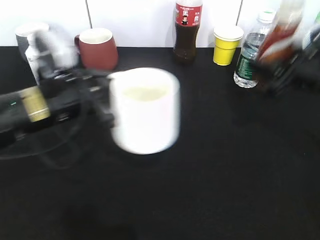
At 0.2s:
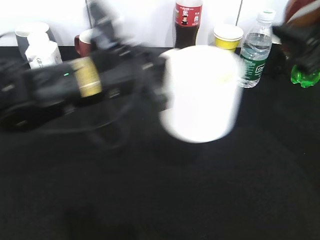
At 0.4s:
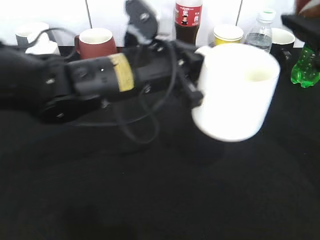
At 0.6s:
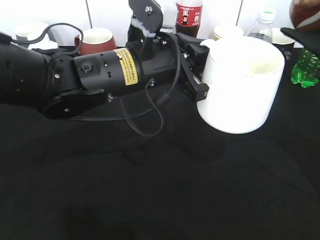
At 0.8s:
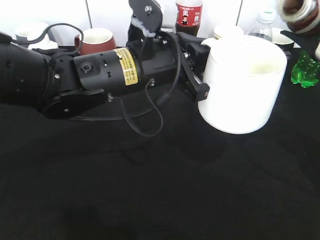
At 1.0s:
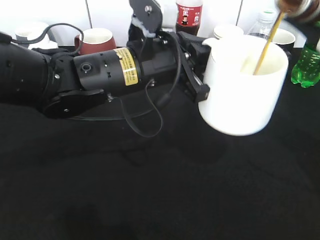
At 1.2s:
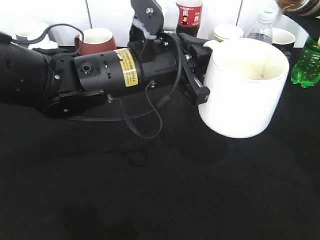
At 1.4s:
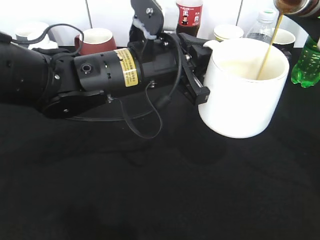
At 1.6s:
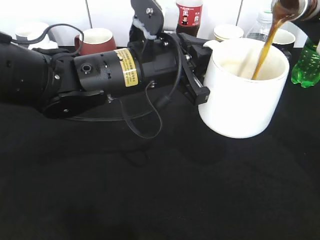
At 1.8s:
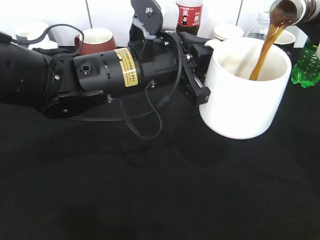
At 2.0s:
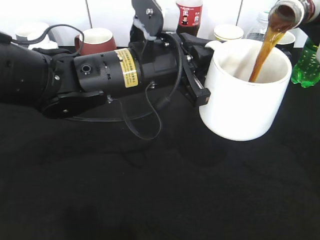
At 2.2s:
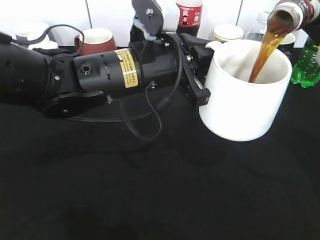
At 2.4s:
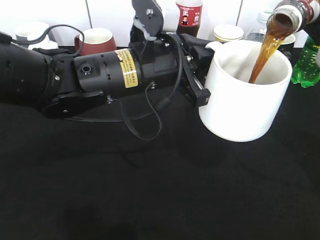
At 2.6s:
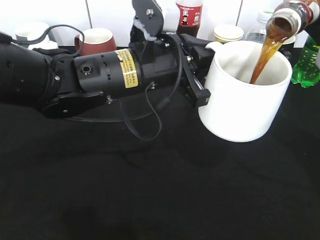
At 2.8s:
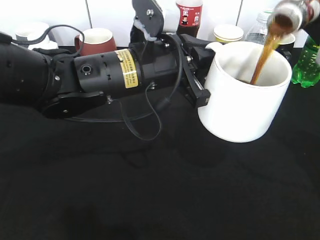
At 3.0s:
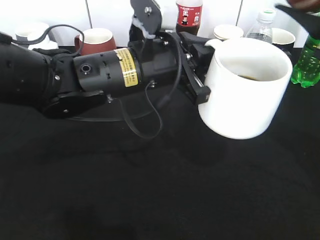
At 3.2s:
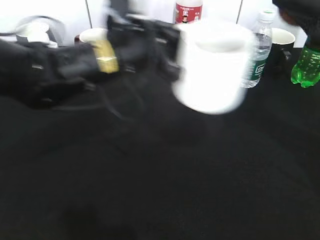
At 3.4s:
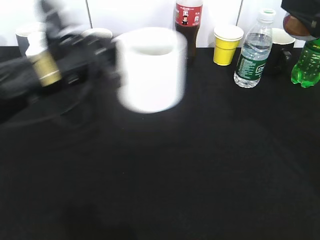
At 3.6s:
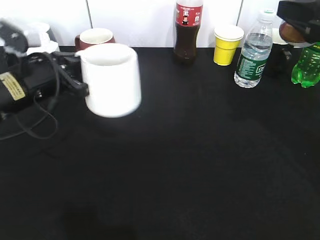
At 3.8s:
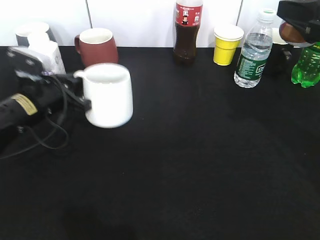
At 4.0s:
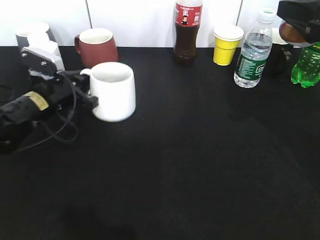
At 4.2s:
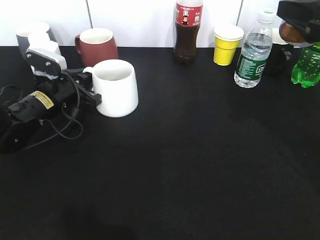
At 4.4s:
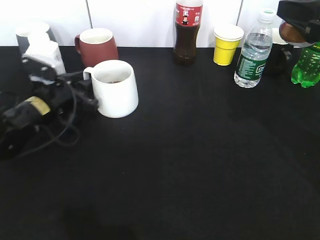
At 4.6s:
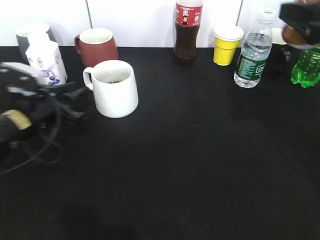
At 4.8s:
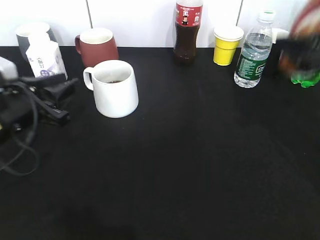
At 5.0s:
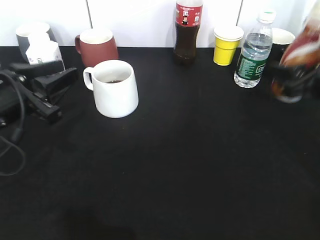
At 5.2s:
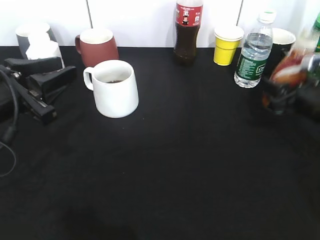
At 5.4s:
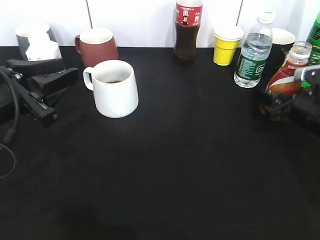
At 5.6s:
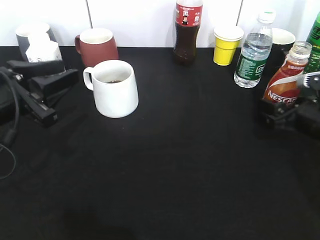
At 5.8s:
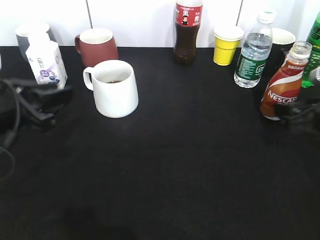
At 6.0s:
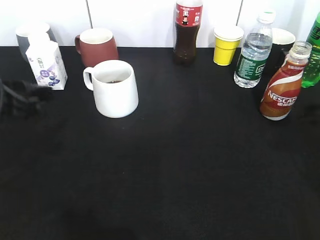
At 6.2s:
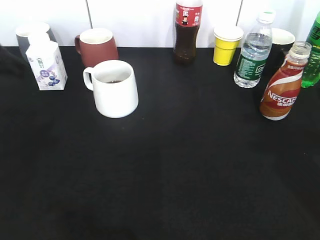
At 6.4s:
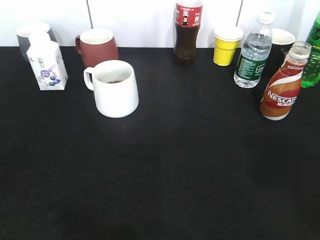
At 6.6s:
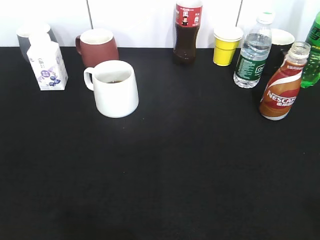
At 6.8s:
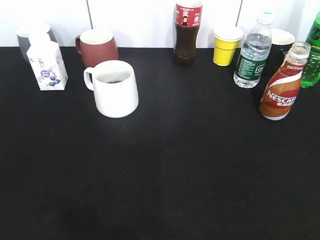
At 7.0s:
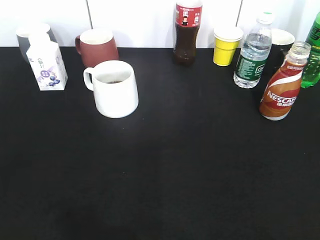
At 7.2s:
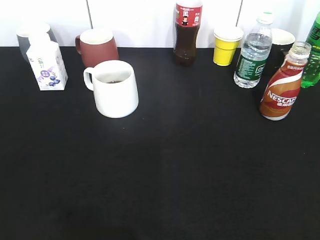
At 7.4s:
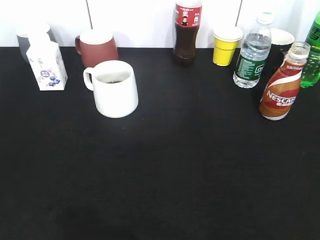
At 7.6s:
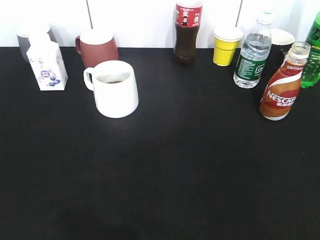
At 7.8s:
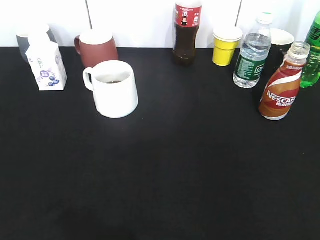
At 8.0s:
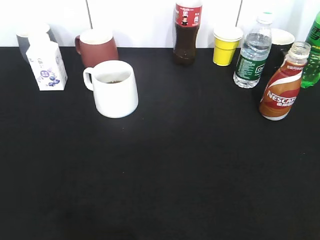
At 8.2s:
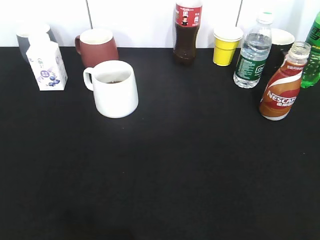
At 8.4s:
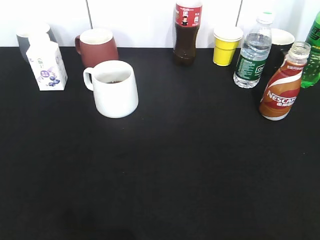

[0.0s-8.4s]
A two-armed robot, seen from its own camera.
Step, 0.0s to 3.2s: Pour the coffee from bottle to cup with right gripper.
Step, 3.4s to 4.4s: Place the white cup on the table with left gripper.
Step, 4.6s to 5.8s: Place the coffee bottle on the table with right gripper.
0.0s to 1.4s: The right gripper heads upward, covering about 10 cm. The left gripper moves to the right, some 10 cm.
1.4s to 2.8s: The grippers stay close to where they were, moving slightly.
2.8s to 4.2s: The left gripper goes some 25 cm to the left, downward and forward.
4.2s to 5.6s: The right gripper heads downward, covering about 20 cm, and opens; the left gripper travels backward and upward by roughly 15 cm, and opens up.
5.6s to 7.0s: The right gripper is displaced backward and upward by some 35 cm, and closes its fingers, while the left gripper shifts approximately 25 cm backward and to the left.

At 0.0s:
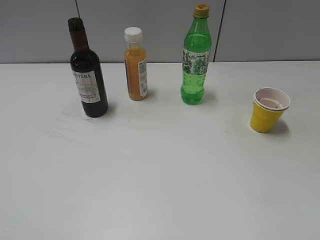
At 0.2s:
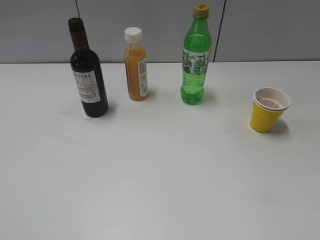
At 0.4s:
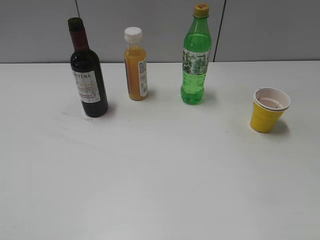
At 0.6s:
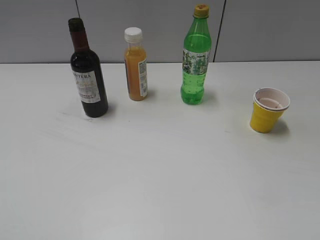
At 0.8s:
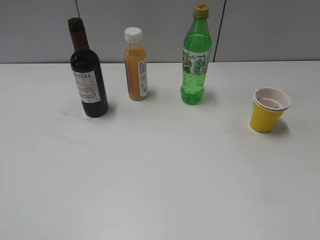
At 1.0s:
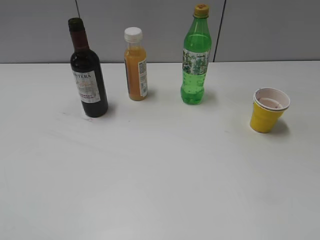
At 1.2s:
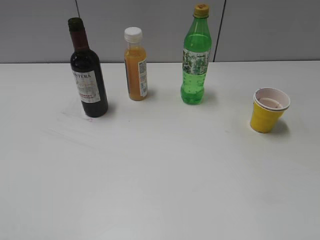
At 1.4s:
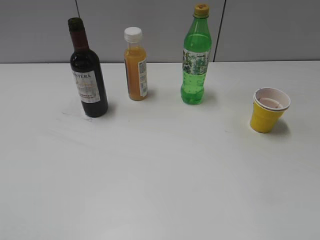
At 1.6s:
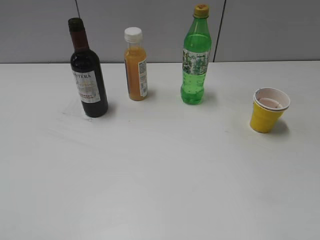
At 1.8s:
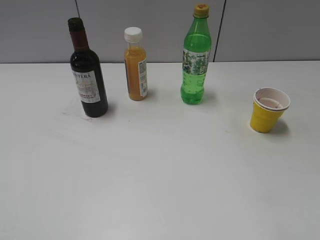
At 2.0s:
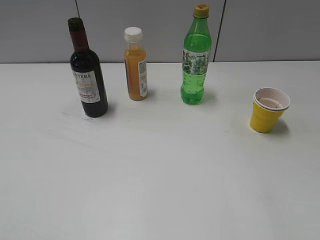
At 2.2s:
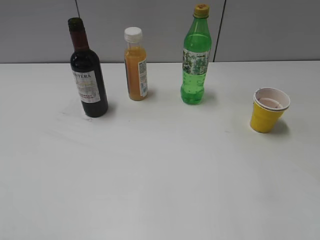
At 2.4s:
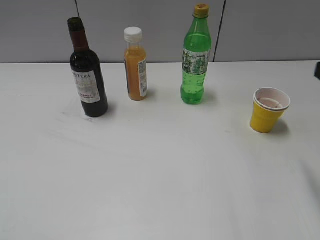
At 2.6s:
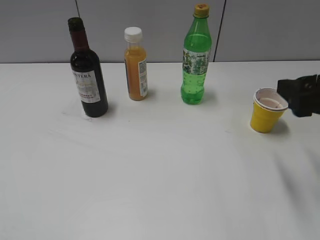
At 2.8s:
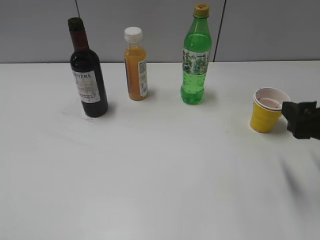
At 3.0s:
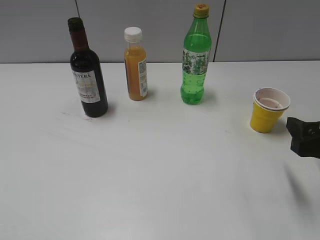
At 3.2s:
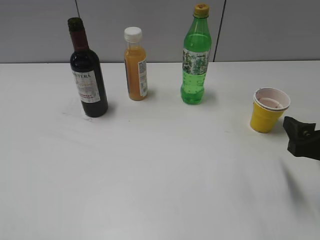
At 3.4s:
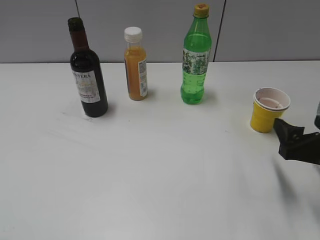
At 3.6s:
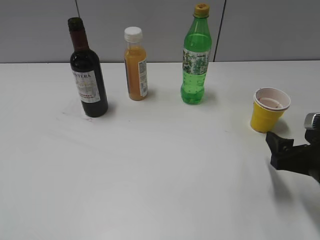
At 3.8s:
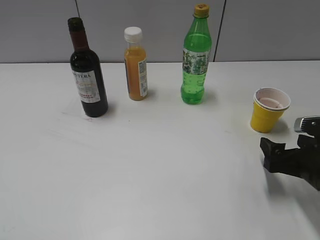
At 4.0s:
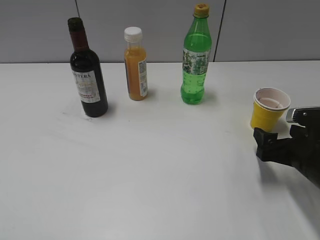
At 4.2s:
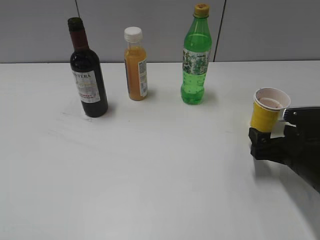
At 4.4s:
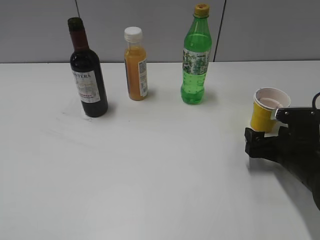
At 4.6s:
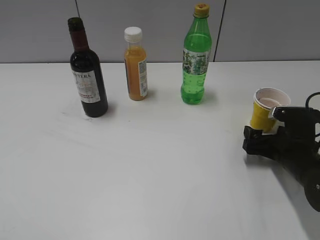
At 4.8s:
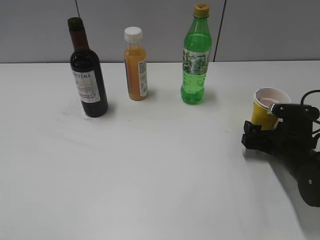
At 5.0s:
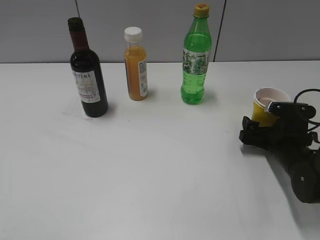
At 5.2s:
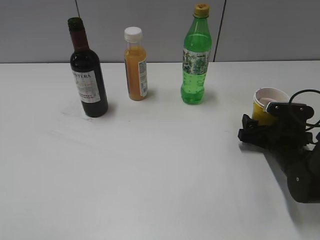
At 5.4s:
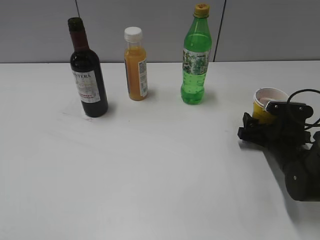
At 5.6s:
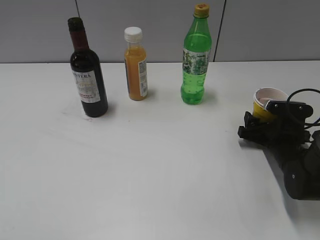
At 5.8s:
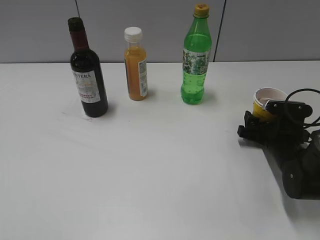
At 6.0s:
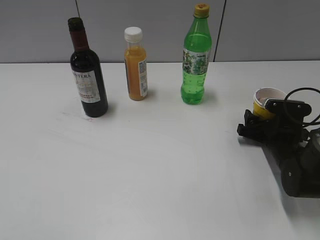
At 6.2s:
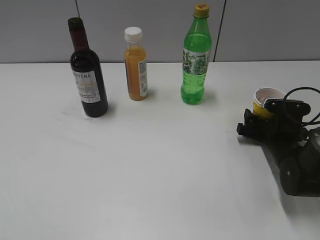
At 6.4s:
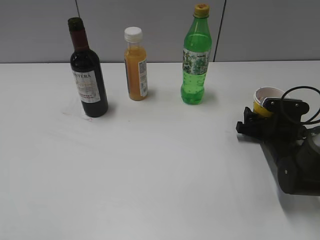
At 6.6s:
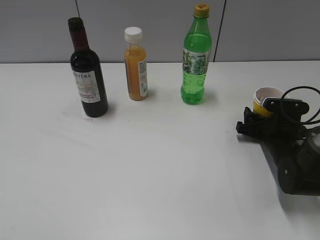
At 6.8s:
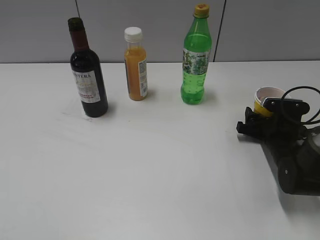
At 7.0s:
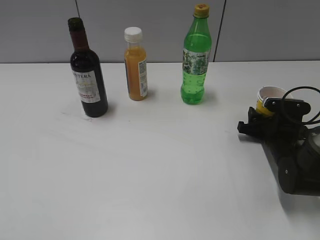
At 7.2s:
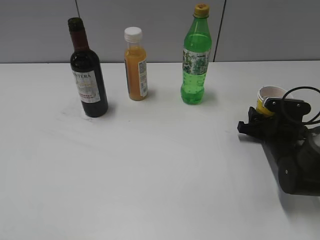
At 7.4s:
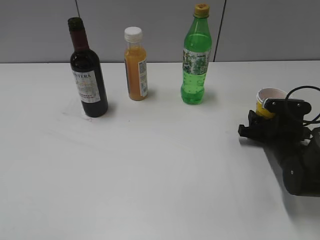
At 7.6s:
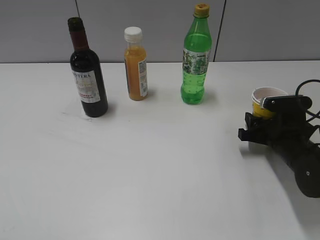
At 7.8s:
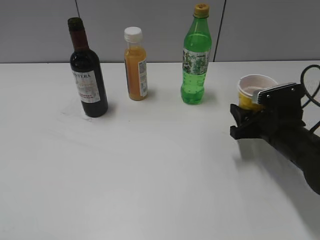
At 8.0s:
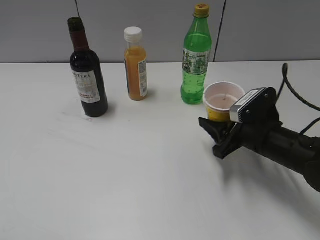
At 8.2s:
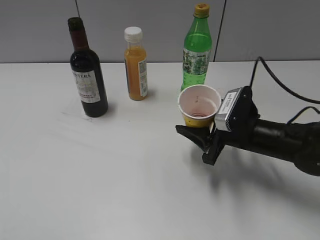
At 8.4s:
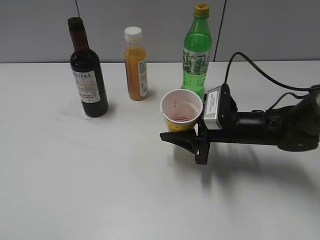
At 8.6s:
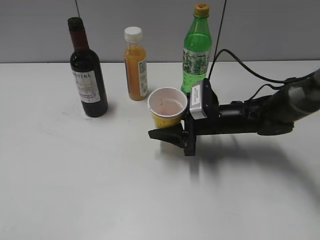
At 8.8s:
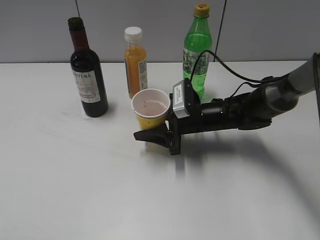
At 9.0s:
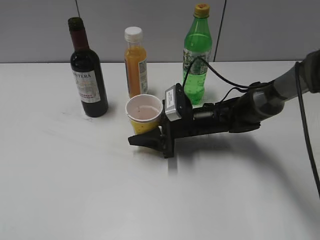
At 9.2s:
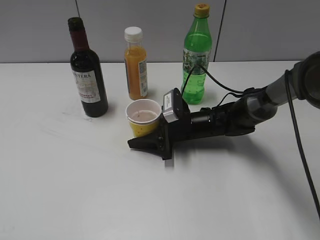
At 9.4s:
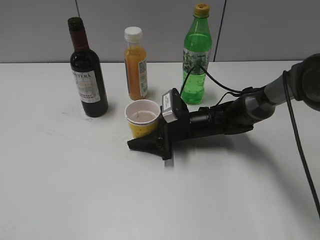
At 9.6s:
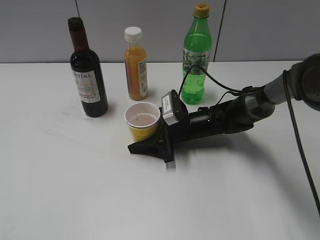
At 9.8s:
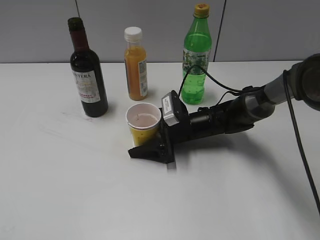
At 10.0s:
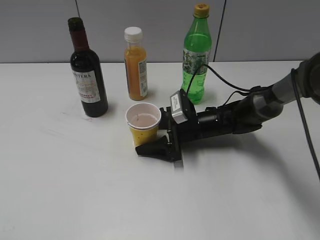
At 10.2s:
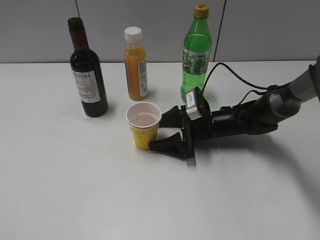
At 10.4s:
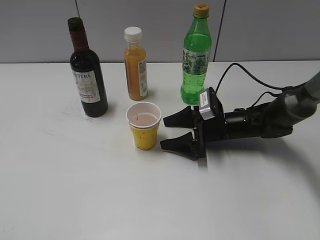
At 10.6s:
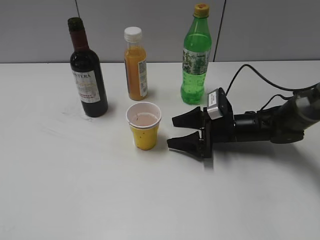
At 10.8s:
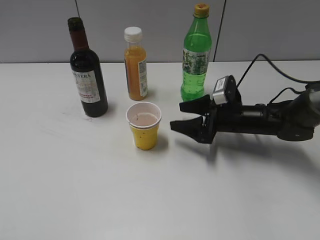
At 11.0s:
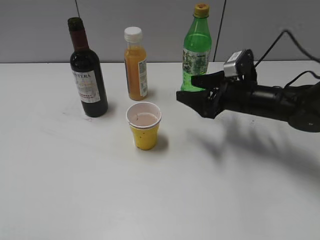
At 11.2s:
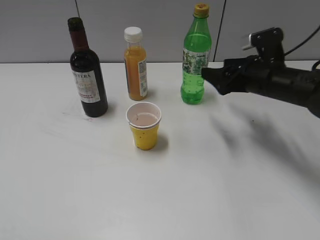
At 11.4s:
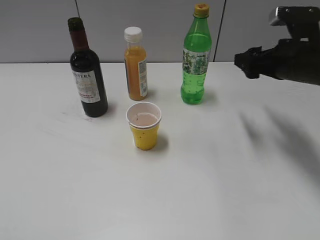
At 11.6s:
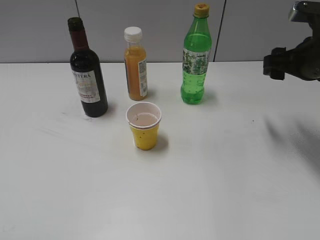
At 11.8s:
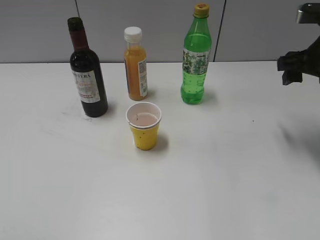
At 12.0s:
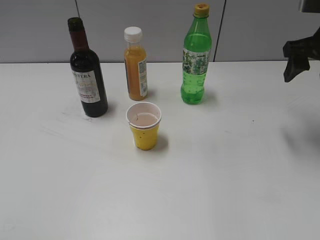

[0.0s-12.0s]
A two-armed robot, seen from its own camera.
Step, 1.0s to 7.2s: Grasp the yellow paper cup with right gripper.
Step, 7.4s to 10.2s: Place the yellow paper cup on the table with right gripper.
1.6s to 3.0s: The right gripper shifts some 20 cm forward and downward.
3.0s to 4.4s: The right gripper shifts some 10 cm downward and forward, and opens up.
4.4s to 6.0s: The right gripper heads forward, covering about 5 cm, and closes.
6.0s to 7.6s: The right gripper closes.
7.6s to 9.0s: The right gripper travels to the left by some 15 cm.
9.0s to 10.4s: The right gripper is displaced to the right by about 5 cm, and opens up.
10.4s to 12.0s: The right gripper heads upward and to the right, covering some 25 cm.

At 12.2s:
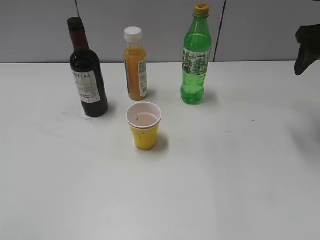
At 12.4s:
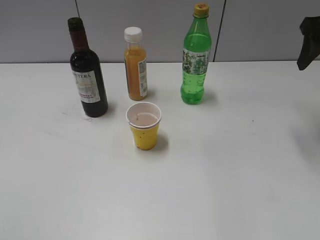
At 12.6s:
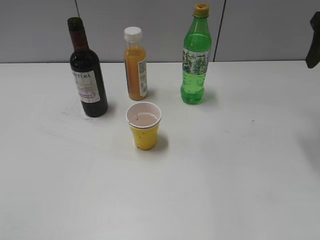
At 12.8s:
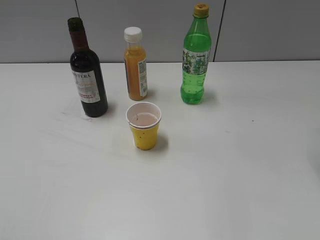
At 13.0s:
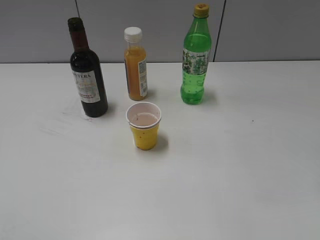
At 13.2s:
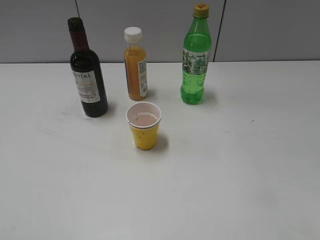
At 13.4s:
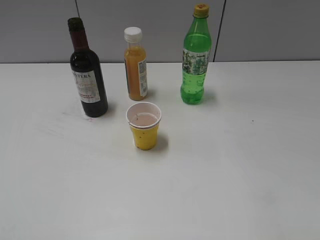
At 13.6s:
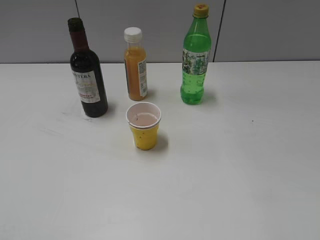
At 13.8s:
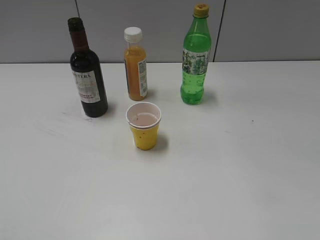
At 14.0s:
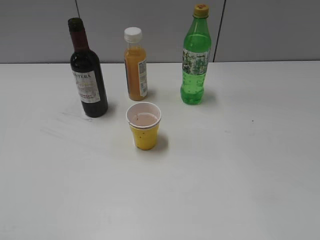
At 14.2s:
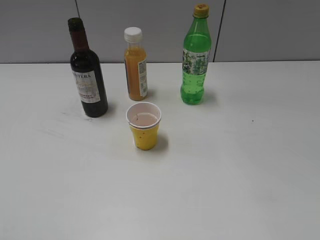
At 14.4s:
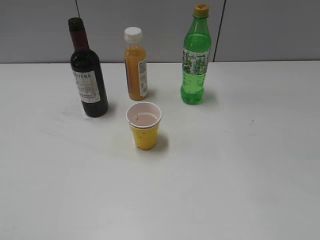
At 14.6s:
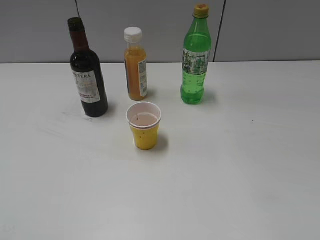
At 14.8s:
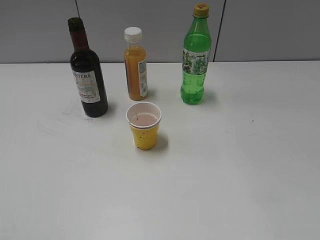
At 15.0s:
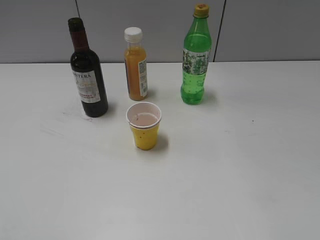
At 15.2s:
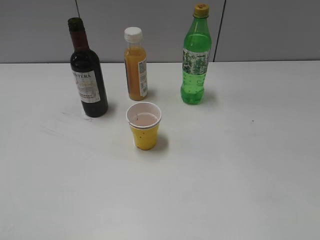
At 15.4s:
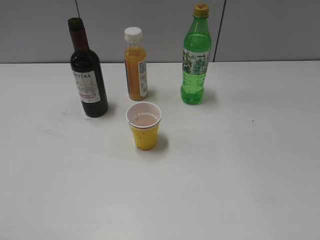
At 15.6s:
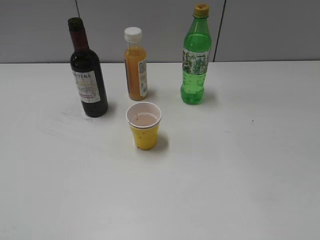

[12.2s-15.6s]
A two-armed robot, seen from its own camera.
12.2s to 13.8s: The right gripper travels backward by approximately 30 cm.
